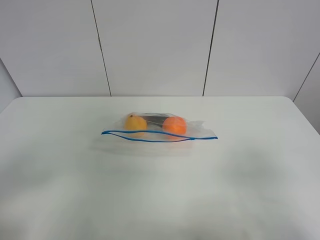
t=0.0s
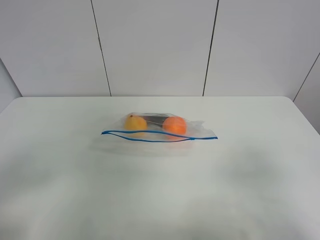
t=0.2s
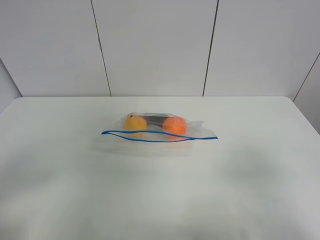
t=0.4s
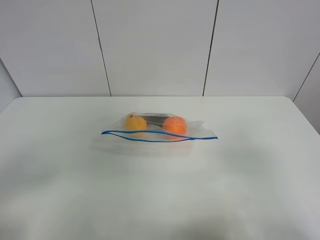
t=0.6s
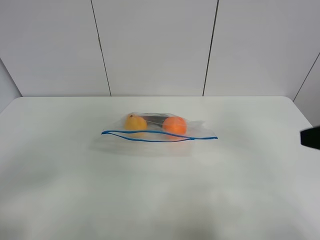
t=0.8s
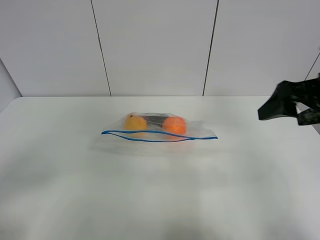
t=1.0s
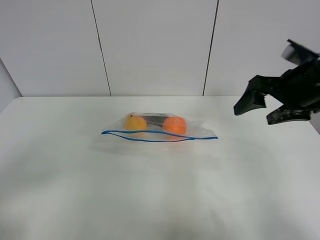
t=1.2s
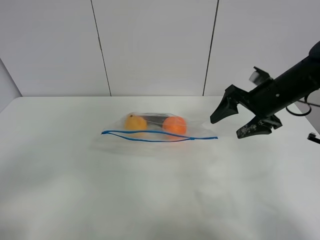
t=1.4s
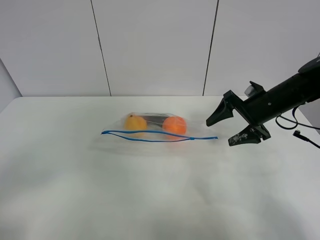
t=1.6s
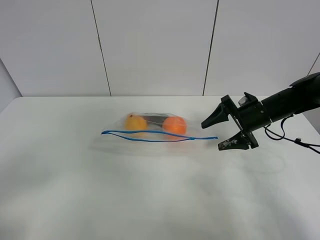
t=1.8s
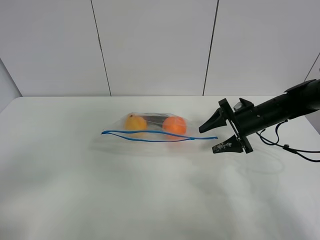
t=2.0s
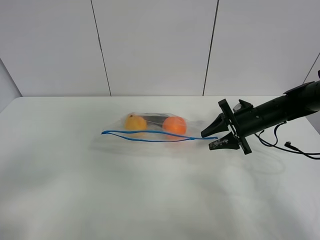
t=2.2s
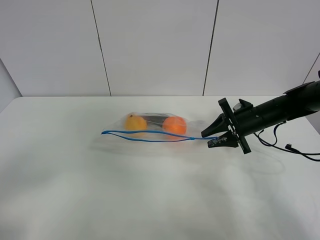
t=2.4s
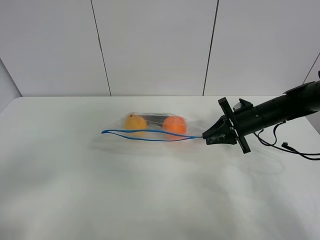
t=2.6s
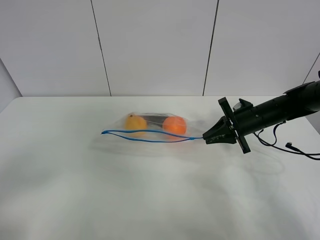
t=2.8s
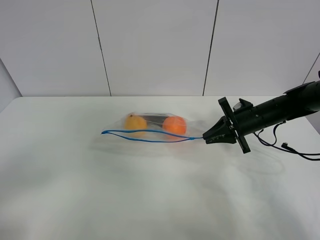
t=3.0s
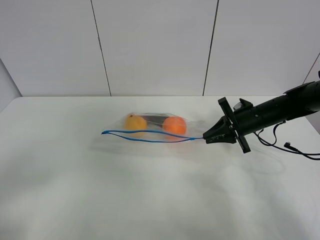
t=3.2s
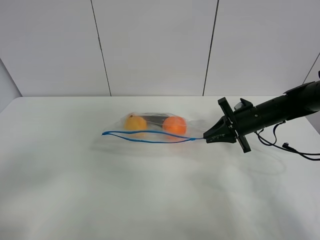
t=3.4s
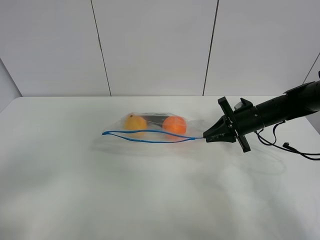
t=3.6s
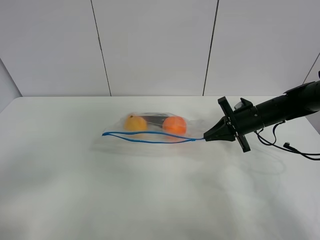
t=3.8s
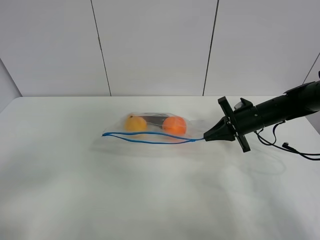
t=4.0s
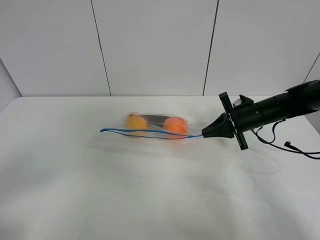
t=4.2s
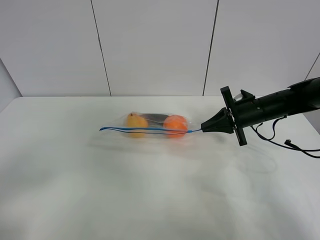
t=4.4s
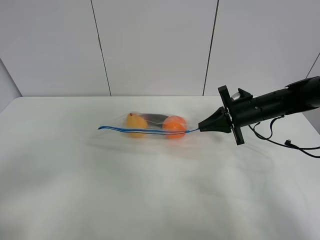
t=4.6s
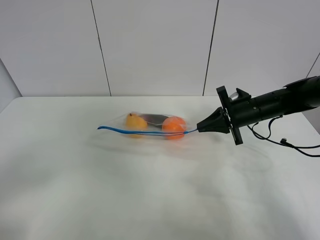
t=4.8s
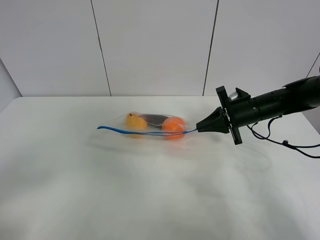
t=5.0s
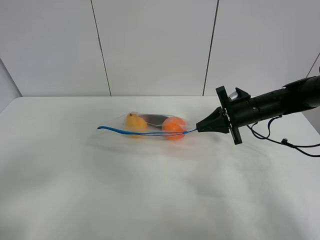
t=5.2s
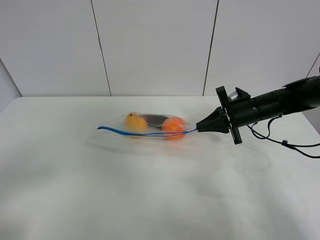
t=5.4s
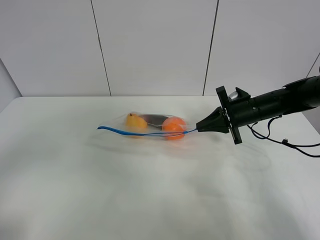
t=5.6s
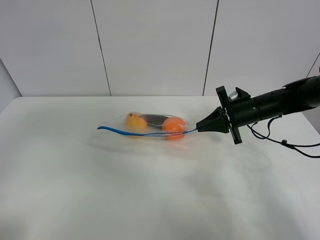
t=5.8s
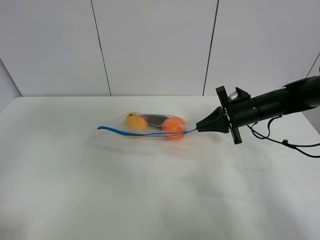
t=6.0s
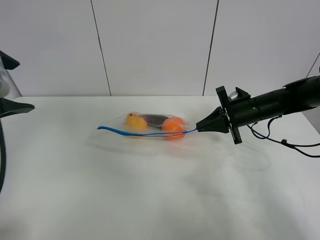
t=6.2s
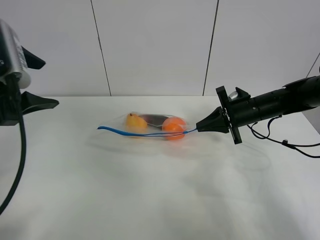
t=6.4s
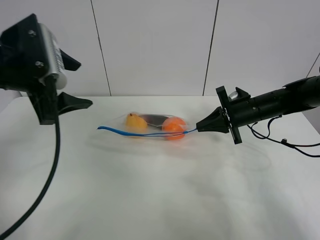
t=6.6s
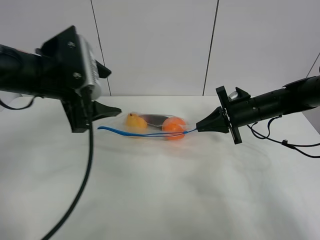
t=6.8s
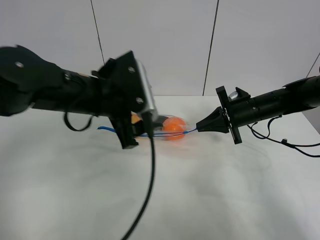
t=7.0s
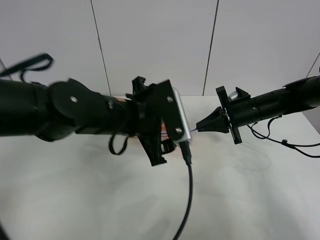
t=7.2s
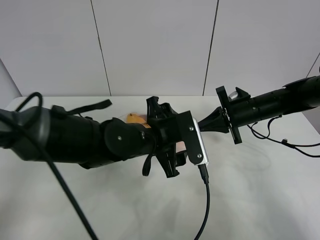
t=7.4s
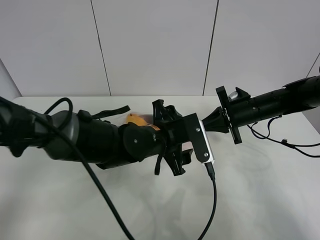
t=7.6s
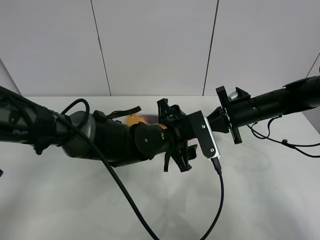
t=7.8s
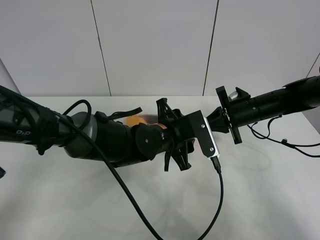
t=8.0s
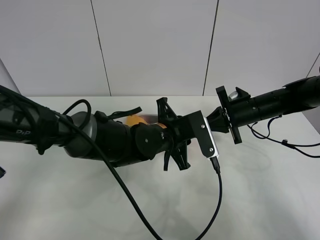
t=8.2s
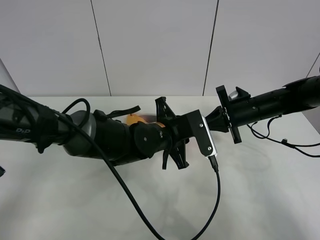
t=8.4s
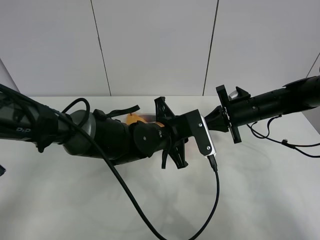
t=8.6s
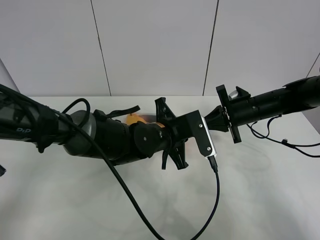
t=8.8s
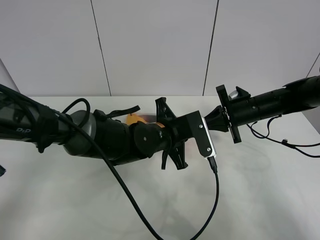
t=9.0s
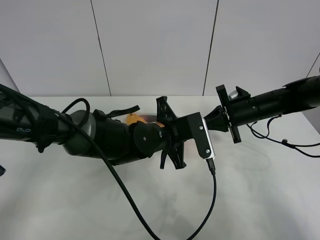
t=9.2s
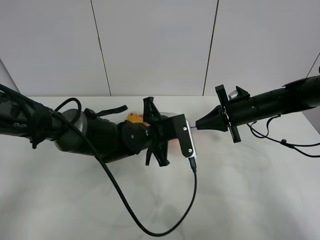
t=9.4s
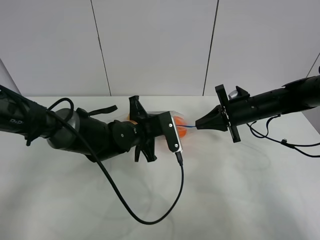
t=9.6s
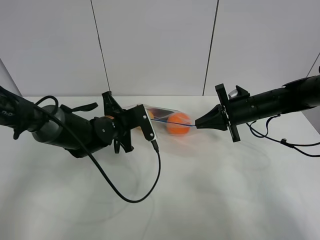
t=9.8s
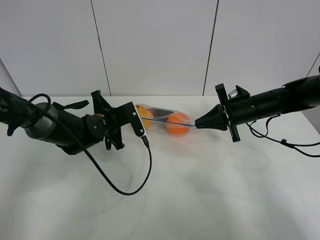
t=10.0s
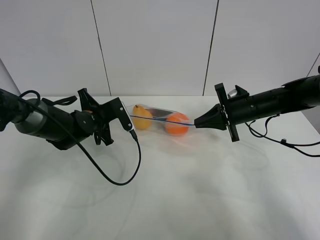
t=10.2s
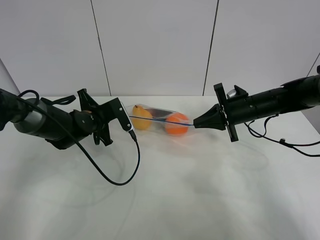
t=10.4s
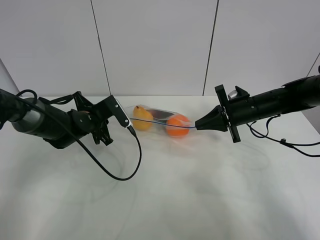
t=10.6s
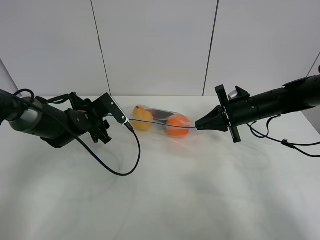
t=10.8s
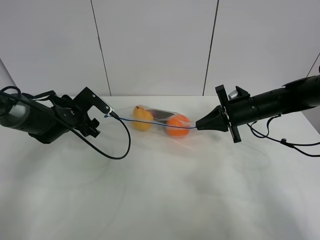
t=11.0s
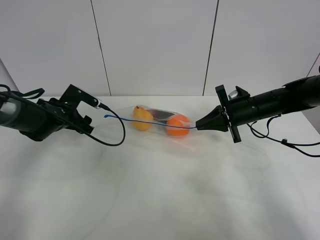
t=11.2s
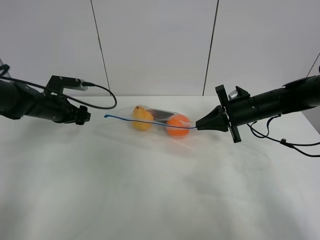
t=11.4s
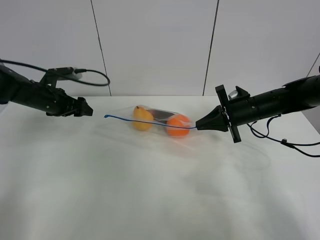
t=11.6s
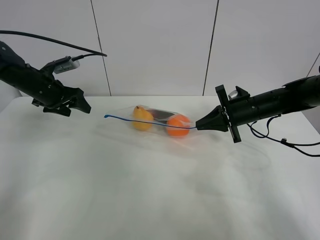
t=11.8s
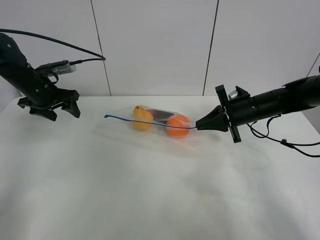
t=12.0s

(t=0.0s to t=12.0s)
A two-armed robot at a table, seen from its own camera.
Step, t=0.0s - t=3.8s: Grasp the fruit bag with right gripper.
Step, t=4.0s - t=4.8s: Lift the fruit bag with your right gripper.
Step, t=5.0s - t=10.8s: Pull the fruit bag with left gripper.
t=0.0s - t=1.6s: The right gripper is displaced forward by about 35 cm.
t=1.6s - t=3.0s: The right gripper shifts by roughly 5 cm, and closes.
t=3.0s - t=4.4s: The grippers stay close to where they were, moving slightly.
t=4.4s - t=6.0s: The left gripper heads forward and upward, covering roughly 20 cm.
t=6.0s - t=7.6s: The left gripper is displaced to the right, downward and forward by approximately 35 cm.
t=7.6s - t=9.0s: The left gripper closes its fingers.
t=9.0s - t=10.4s: The left gripper travels to the left by roughly 20 cm.
t=10.4s - t=12.0s: The left gripper goes some 15 cm to the left and upward, and opens up.

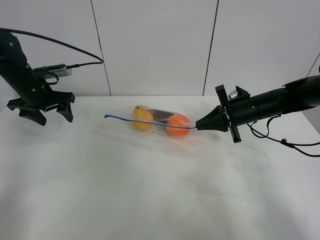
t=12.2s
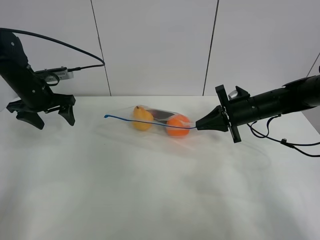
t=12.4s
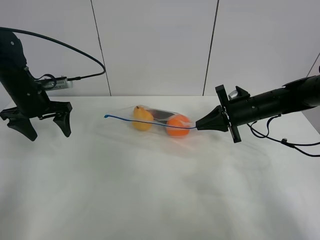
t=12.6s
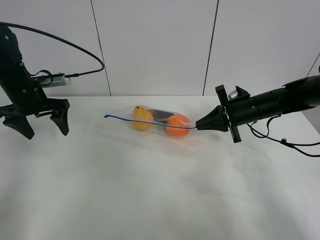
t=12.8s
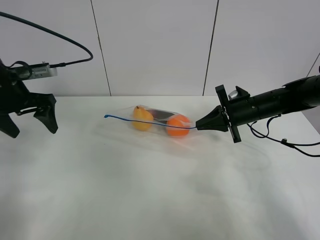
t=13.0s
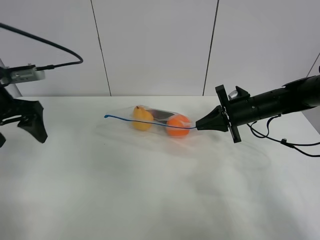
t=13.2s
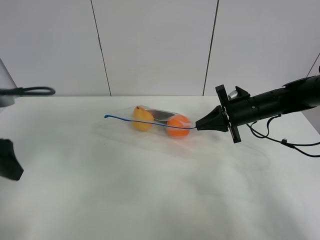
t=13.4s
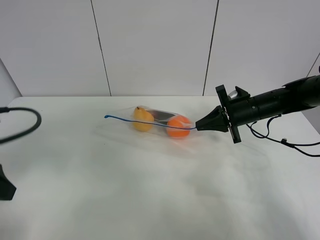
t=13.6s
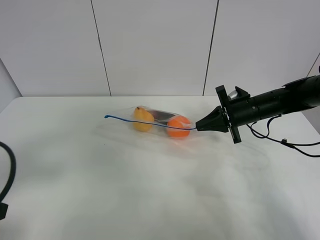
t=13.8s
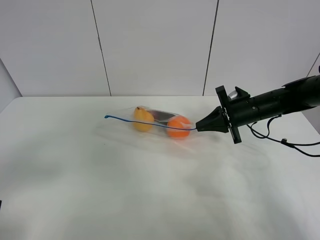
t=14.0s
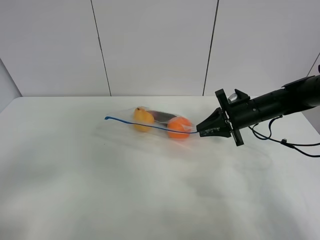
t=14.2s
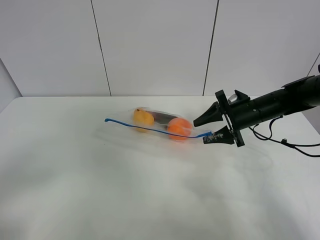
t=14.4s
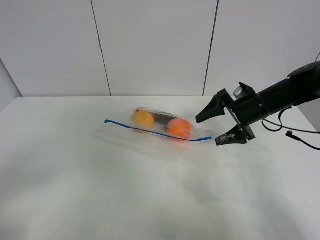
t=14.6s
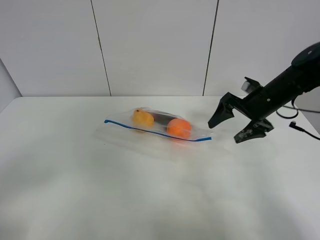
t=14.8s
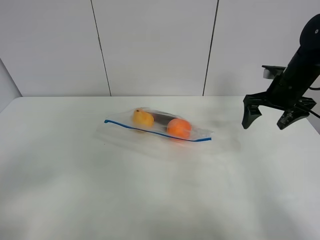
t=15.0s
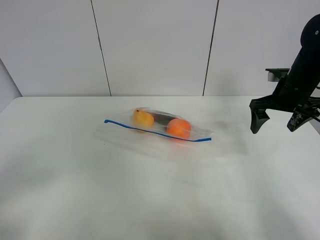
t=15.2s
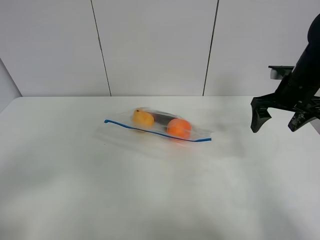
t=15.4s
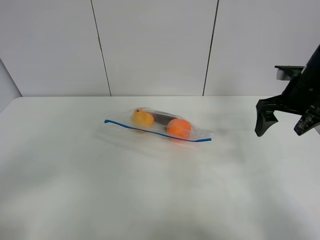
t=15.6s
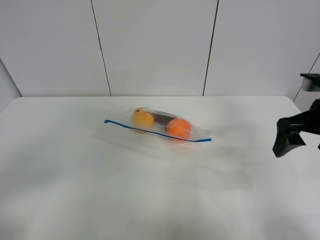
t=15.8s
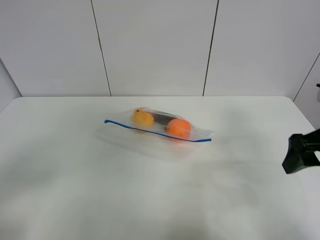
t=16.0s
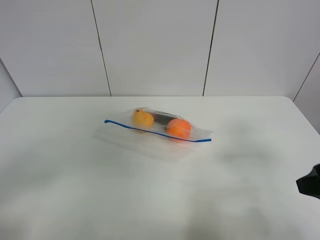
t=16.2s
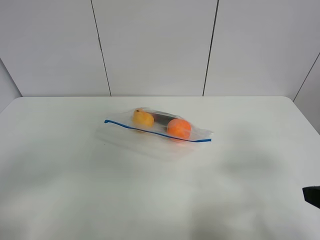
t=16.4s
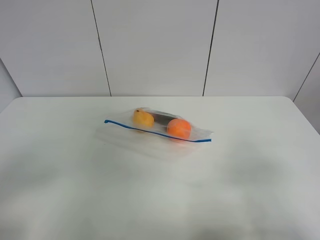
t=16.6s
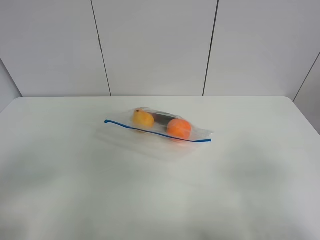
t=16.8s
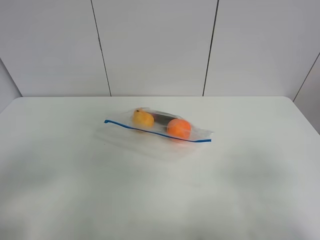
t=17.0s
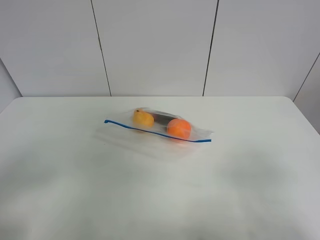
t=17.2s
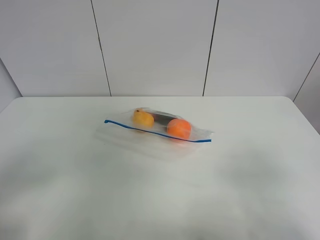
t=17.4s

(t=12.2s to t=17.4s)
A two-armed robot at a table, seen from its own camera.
t=12.2s - t=14.0s: The left gripper travels backward by roughly 35 cm.
t=14.0s - t=15.6s: The right gripper heads upward and to the right, covering roughly 10 cm, and opens up; the left gripper shifts roughly 5 cm backward.
t=15.6s - t=17.4s: The right gripper goes about 30 cm backward.

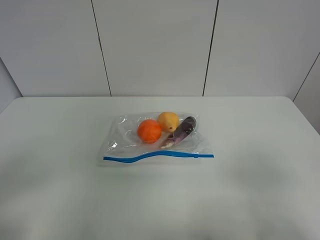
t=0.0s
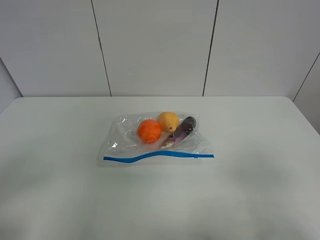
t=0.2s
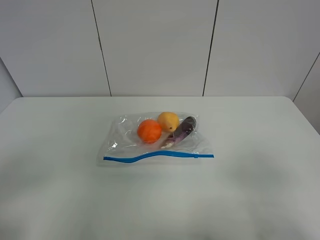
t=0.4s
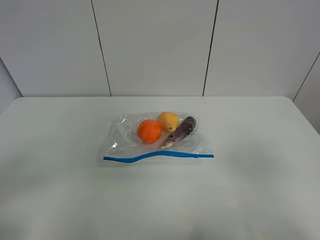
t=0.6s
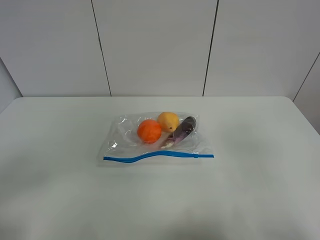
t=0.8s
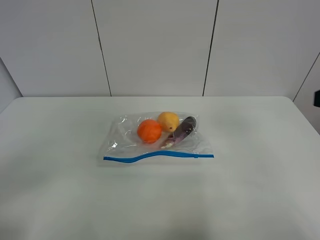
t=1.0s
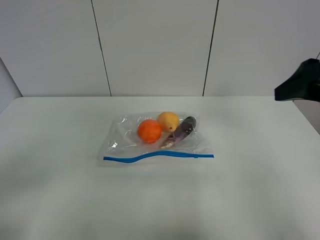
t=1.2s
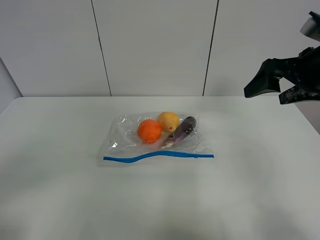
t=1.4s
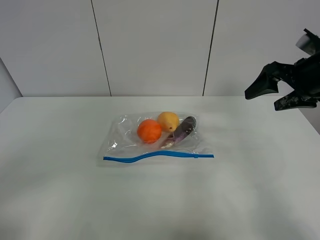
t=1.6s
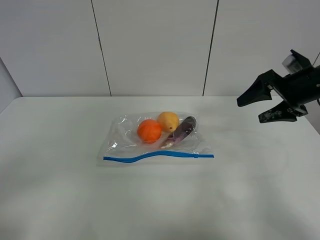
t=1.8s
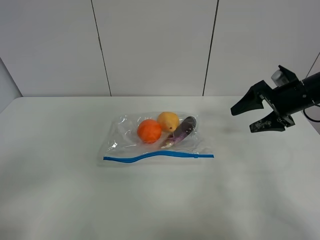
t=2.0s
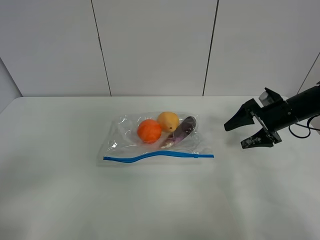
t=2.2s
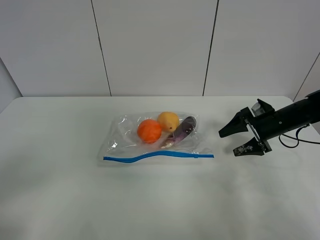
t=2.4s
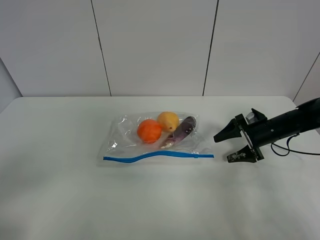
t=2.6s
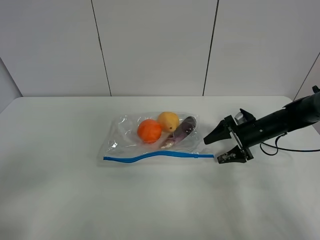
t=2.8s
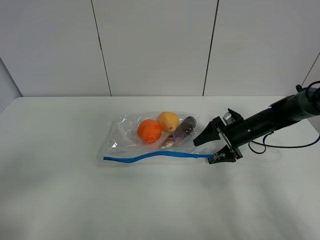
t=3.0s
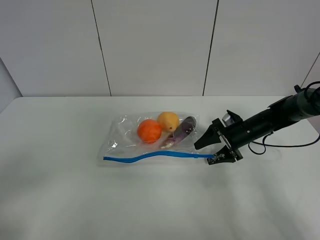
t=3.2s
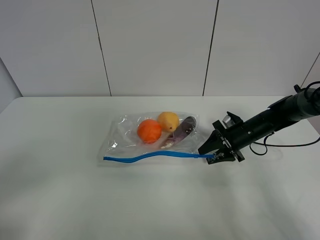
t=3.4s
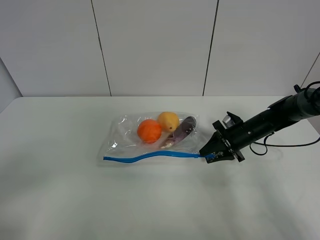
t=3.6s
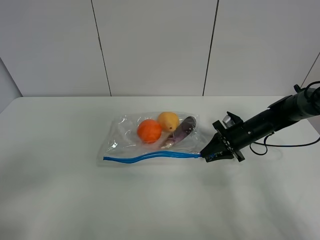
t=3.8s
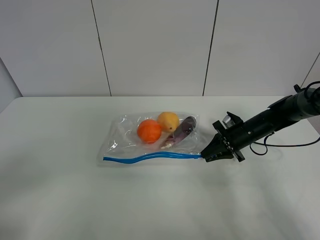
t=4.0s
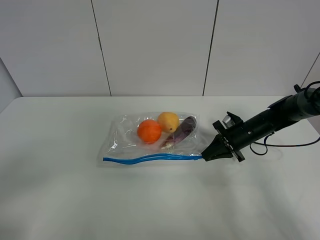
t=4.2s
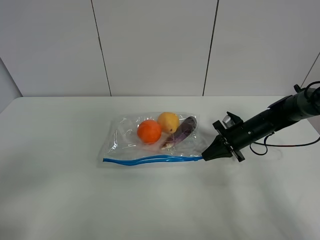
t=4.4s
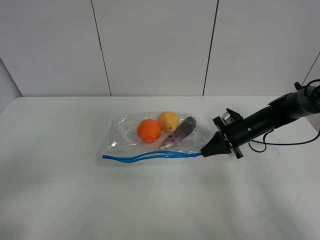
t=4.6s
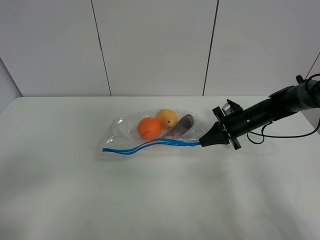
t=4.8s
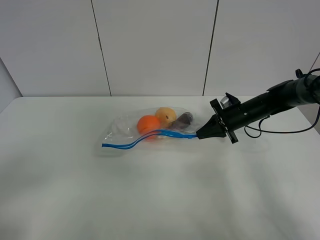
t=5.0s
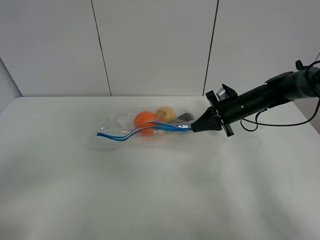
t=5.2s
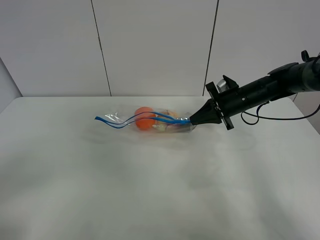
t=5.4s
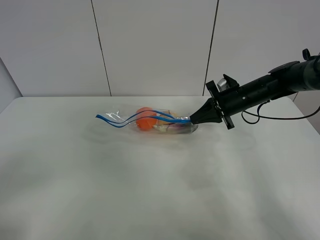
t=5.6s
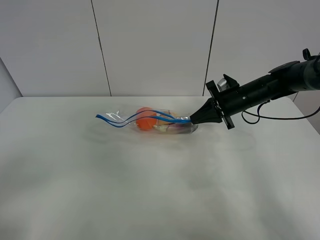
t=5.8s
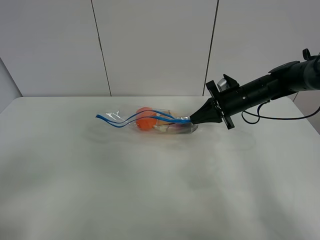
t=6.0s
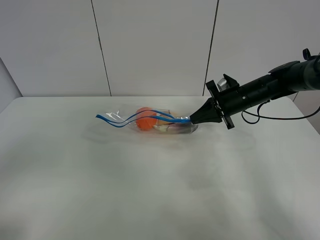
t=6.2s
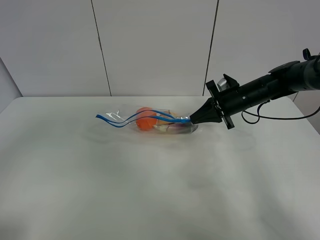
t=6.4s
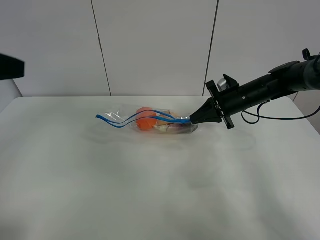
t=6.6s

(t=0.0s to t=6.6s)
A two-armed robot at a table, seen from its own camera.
Step, t=0.0s - t=4.4s: Grasp the fruit bag with right gripper.
Step, t=4.6s - t=5.8s: Lift the fruit bag with your right gripper.
t=0.0s - t=1.6s: The right gripper heads forward, covering about 30 cm.
t=1.6s - t=3.2s: The right gripper travels downward by approximately 20 cm.
t=3.2s - t=5.0s: The right gripper changes place by some 5 cm, and closes.
t=5.0s - t=6.6s: The left gripper is displaced forward and upward by roughly 20 cm, while the right gripper moves about 5 cm.
